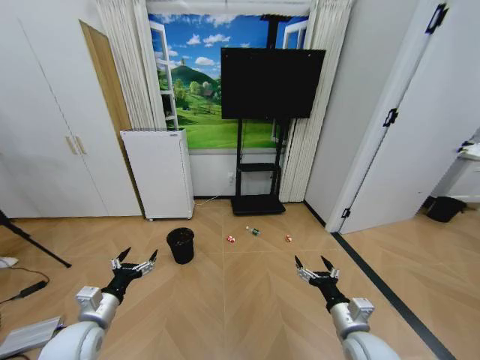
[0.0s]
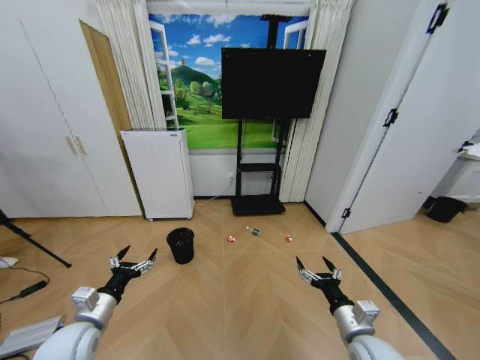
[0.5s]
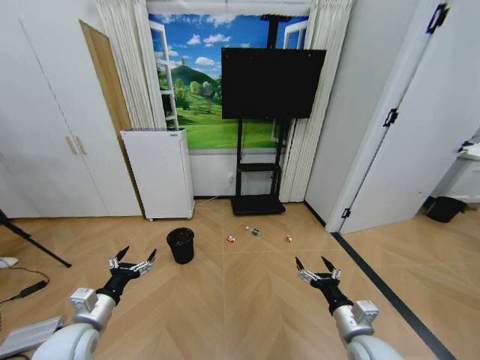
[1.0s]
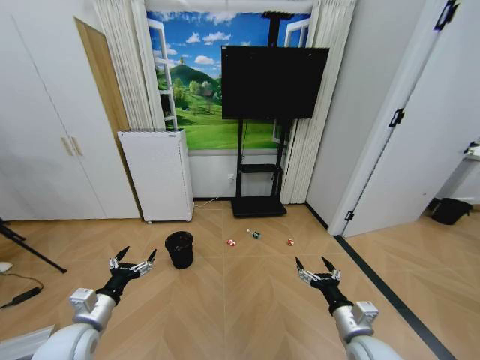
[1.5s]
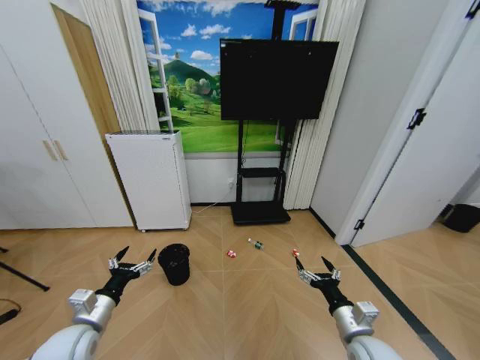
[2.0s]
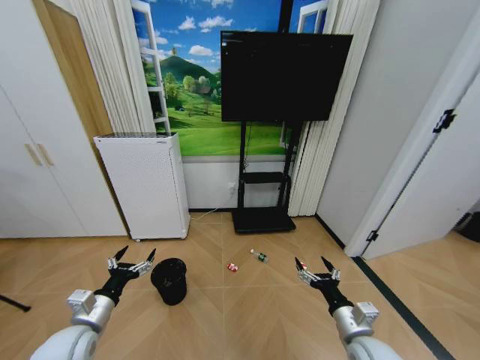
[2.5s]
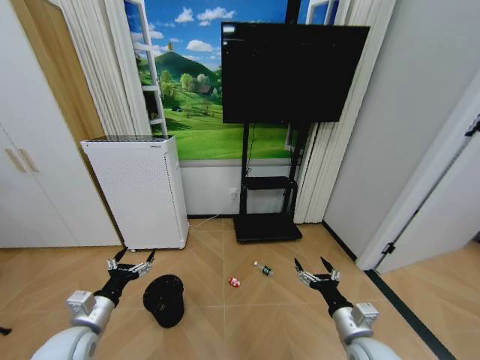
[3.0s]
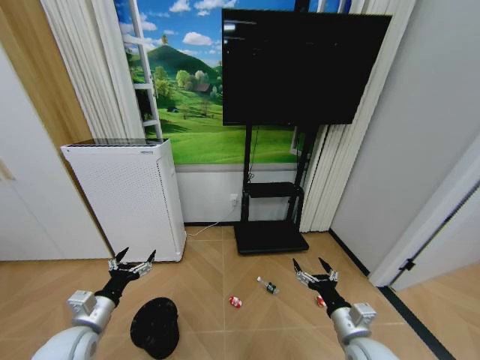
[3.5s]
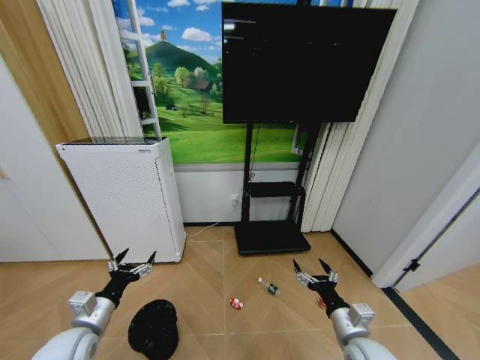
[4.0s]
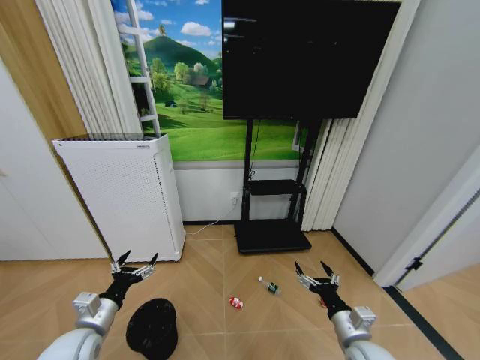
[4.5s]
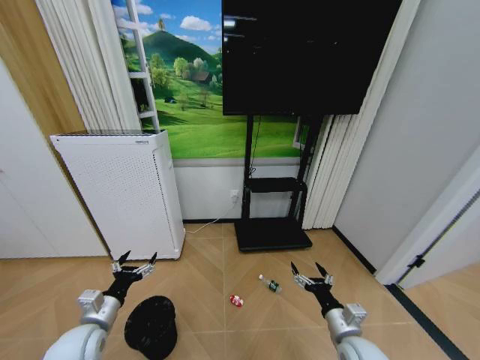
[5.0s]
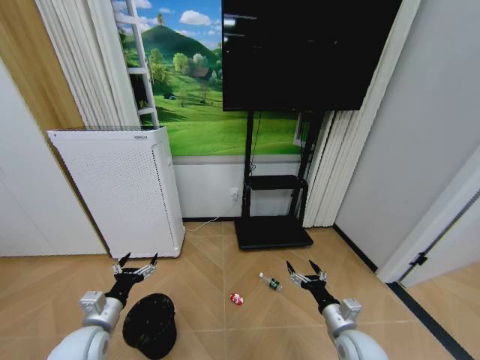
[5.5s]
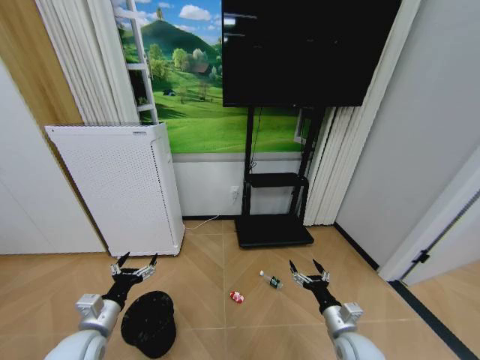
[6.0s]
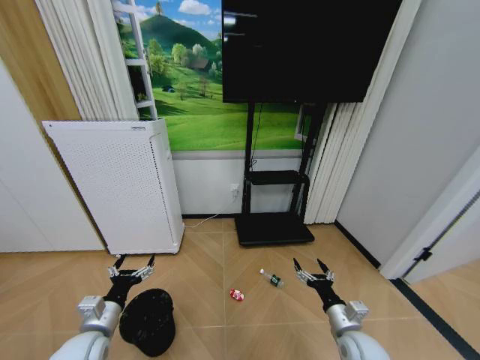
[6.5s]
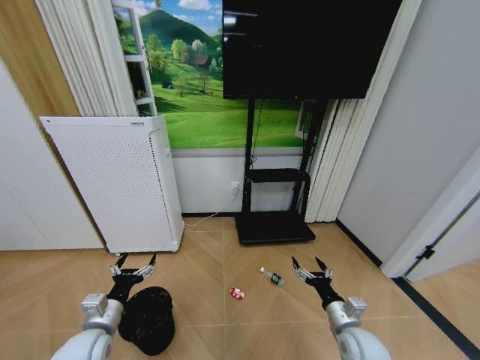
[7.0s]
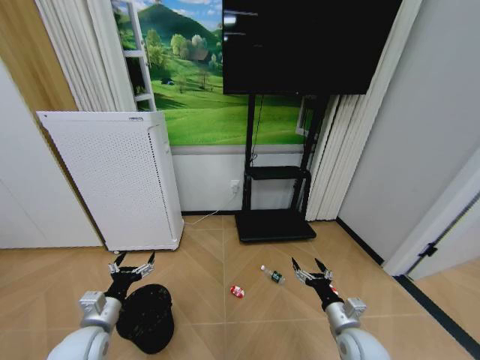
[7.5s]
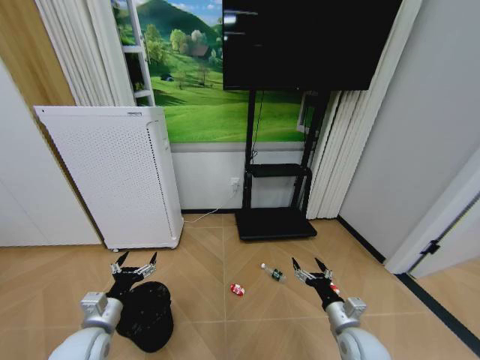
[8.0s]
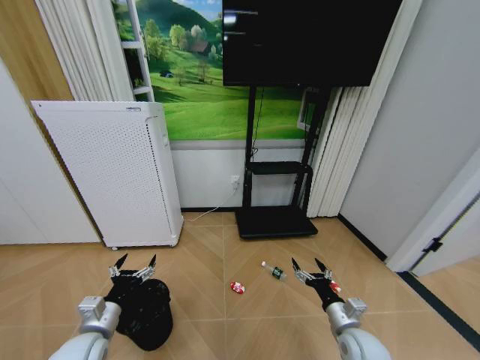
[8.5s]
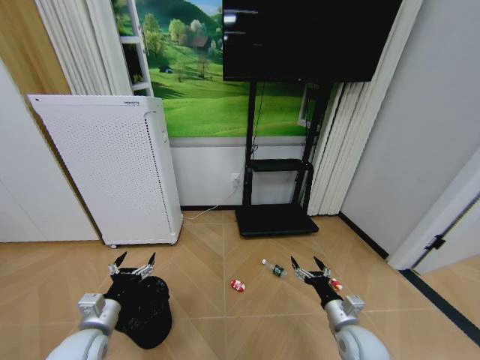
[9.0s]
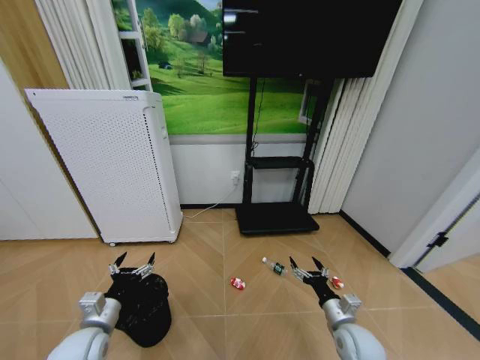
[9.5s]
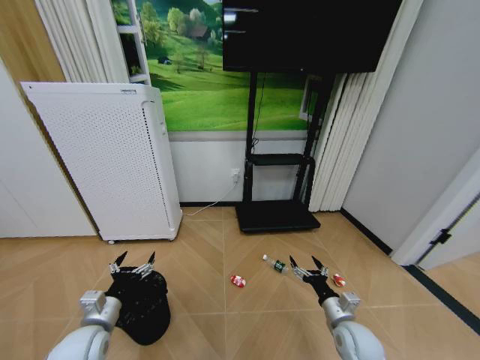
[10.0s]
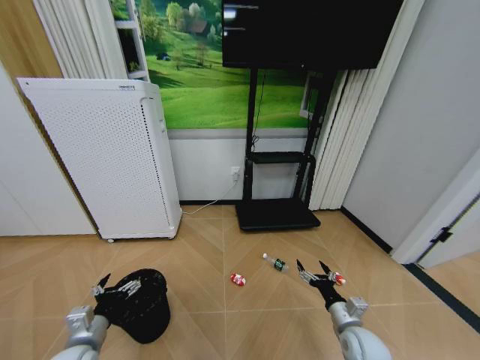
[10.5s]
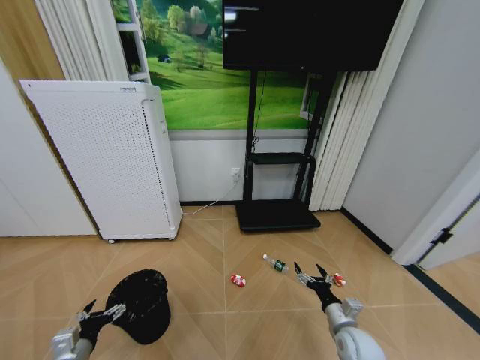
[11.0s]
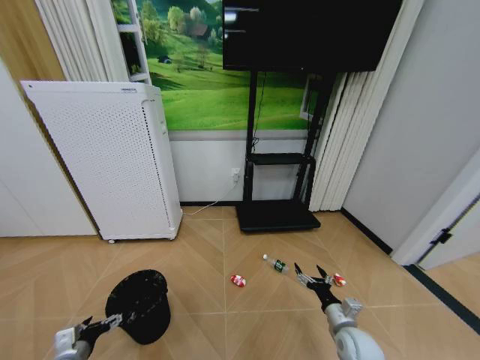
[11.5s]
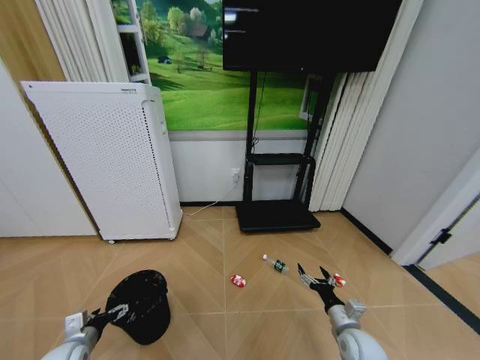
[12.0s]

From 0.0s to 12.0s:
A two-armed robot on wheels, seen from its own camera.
Task of the whole recording: Pick up the trash bin and place the garbage on the floor into it.
From 4.0s to 6.0s: The right gripper goes some 5 cm downward.
From 6.0s to 10.0s: There are only small adjustments of the grippers.
From 10.0s to 12.0s: The left gripper is displaced to the left and downward by some 10 cm.

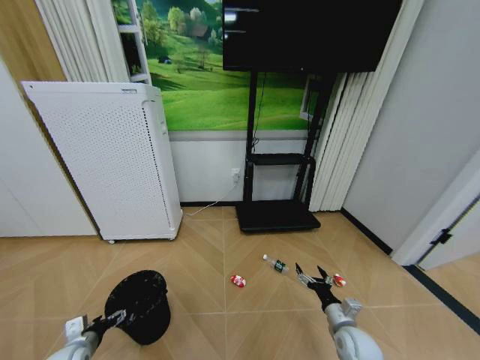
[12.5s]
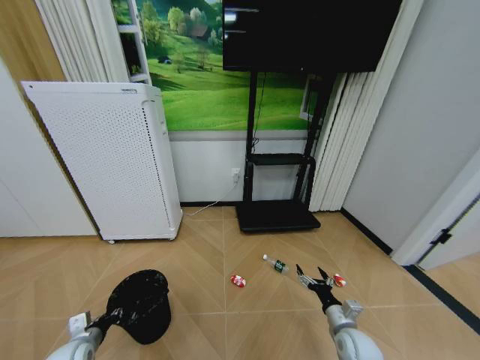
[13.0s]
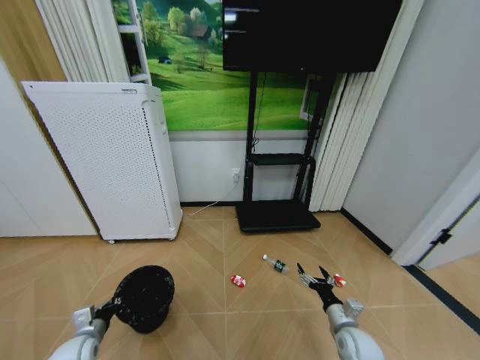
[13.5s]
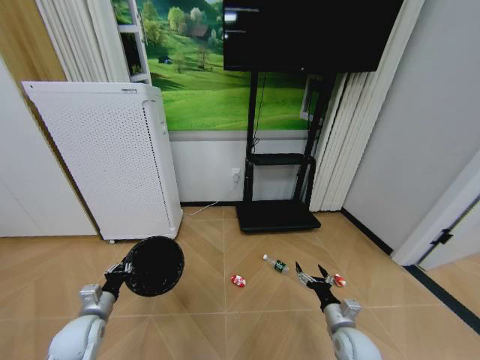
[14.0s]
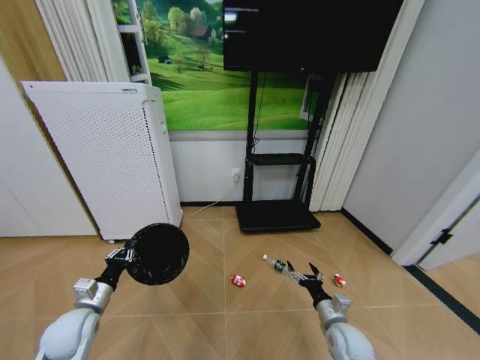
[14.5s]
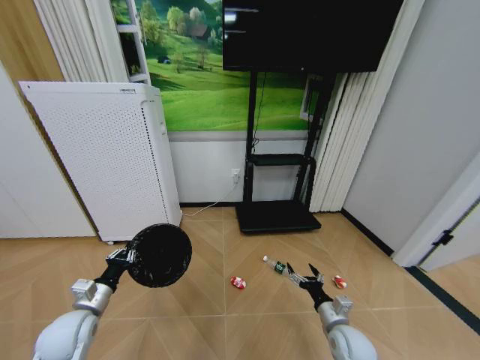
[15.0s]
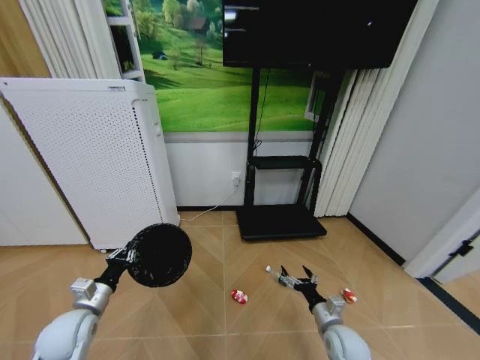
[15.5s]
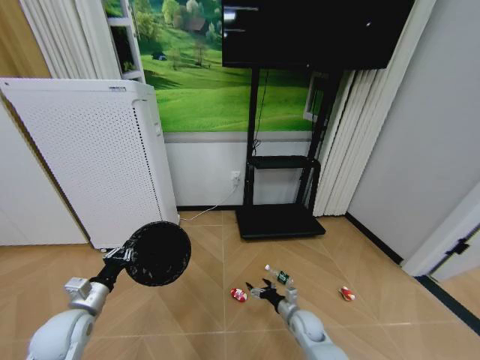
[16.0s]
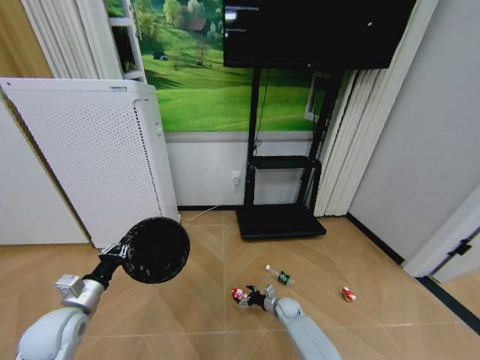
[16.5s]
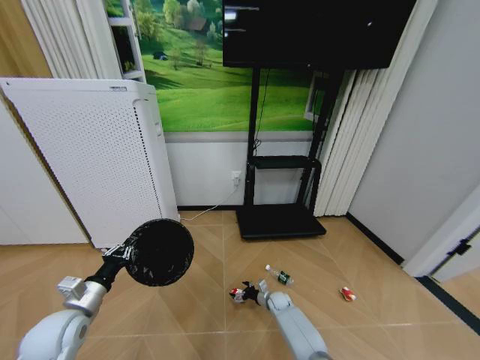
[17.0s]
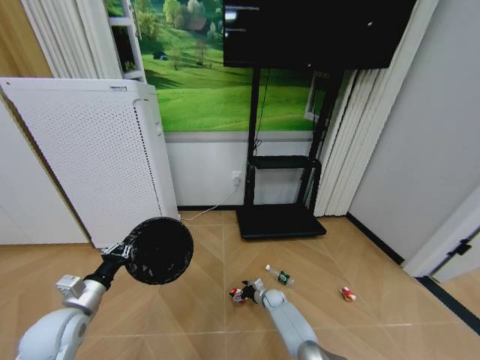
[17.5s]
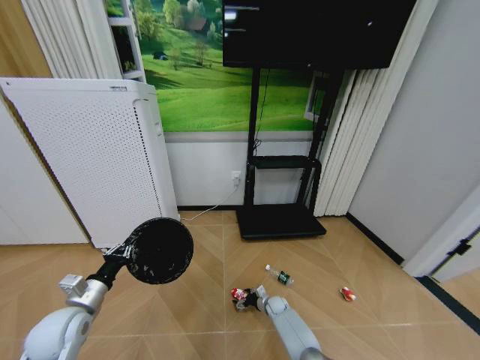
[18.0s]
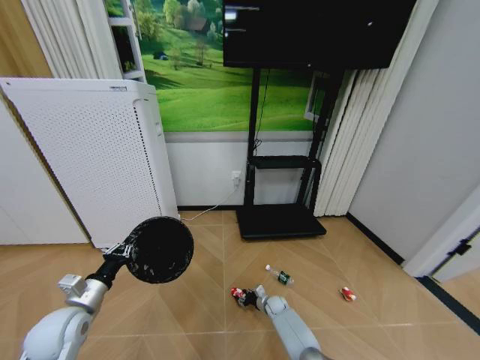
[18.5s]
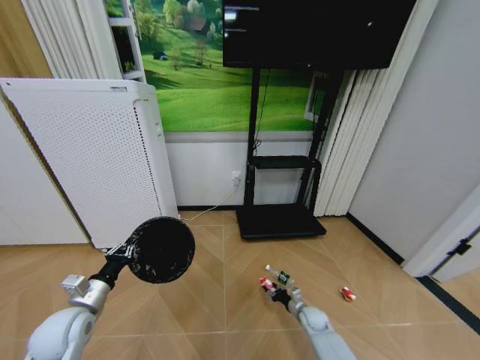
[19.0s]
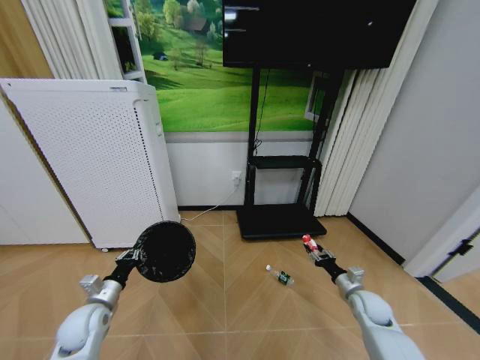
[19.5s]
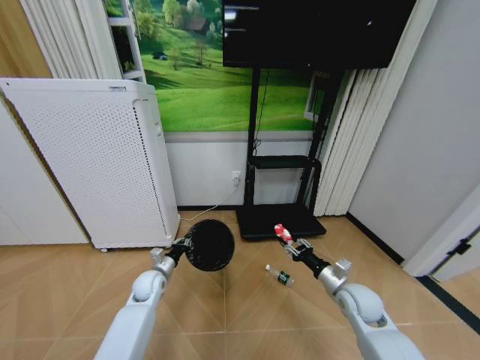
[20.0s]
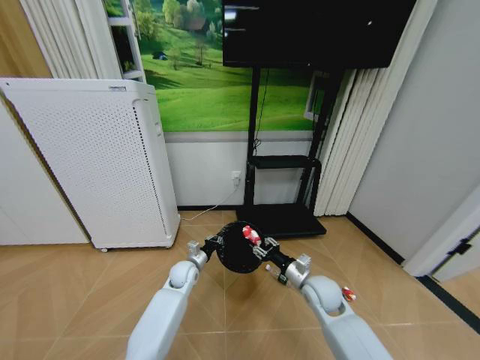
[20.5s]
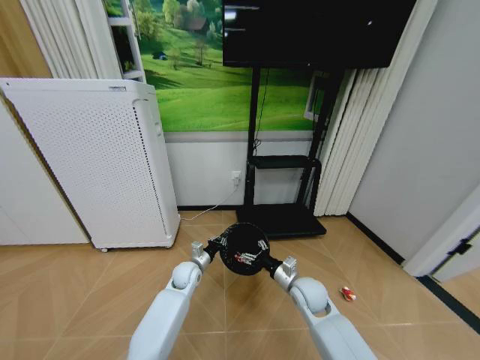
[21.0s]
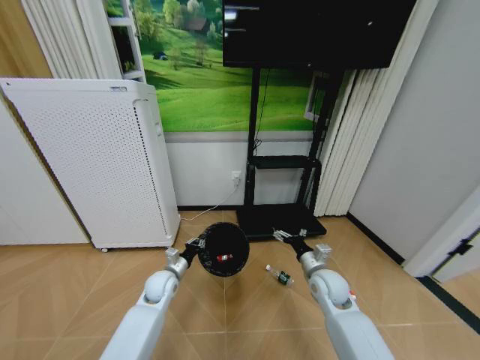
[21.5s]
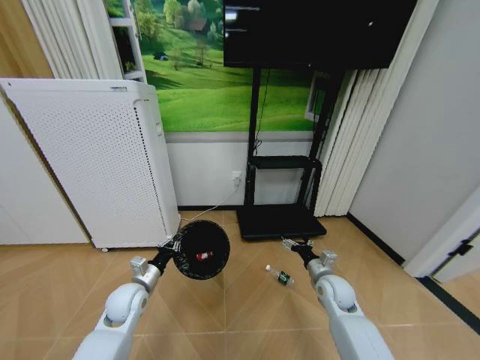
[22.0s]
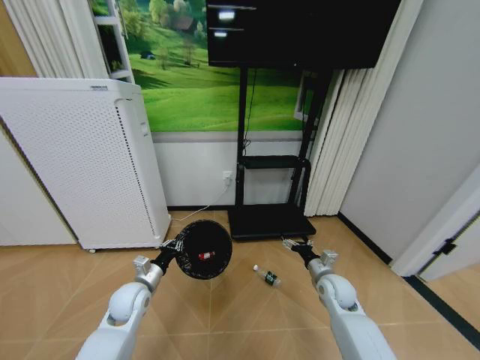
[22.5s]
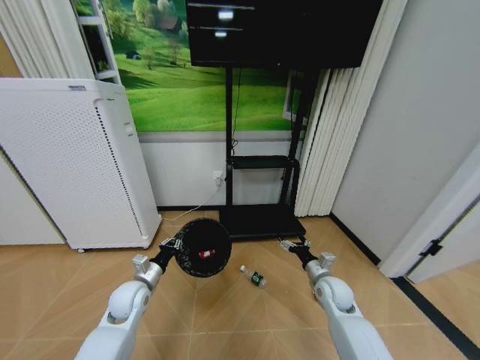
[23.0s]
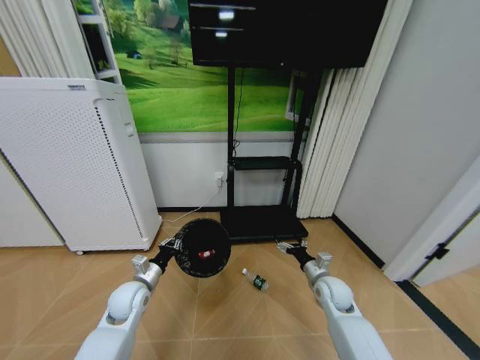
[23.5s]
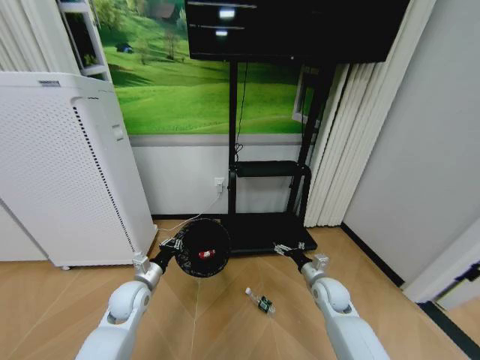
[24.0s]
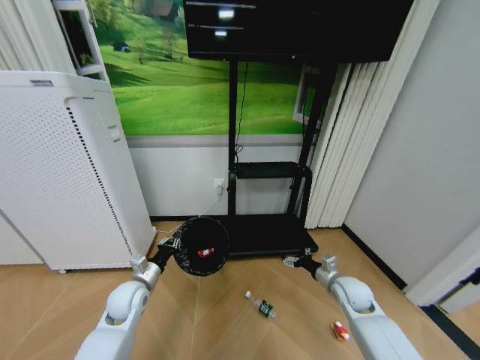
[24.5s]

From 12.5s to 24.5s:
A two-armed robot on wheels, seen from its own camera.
Task of the whole recording: Pick up the trash bin and place the garbage on the floor into it.
From 12.5s to 14.5s: The left gripper goes about 10 cm upward and forward, and closes.
From 14.5s to 16.5s: The right gripper travels downward, forward and to the left by some 25 cm.
From 16.5s to 18.5s: The right gripper ends up roughly 5 cm from where it was, and closes.
From 18.5s to 20.5s: The left gripper heads to the right, forward and downward, covering roughly 30 cm, while the right gripper is displaced upward by approximately 30 cm.
From 20.5s to 22.5s: The left gripper travels to the left, backward and upward by roughly 15 cm. The right gripper is displaced to the right by about 5 cm, and opens.

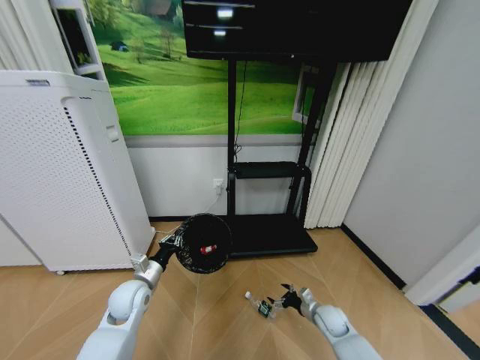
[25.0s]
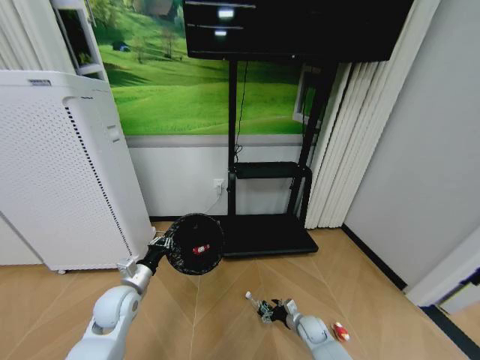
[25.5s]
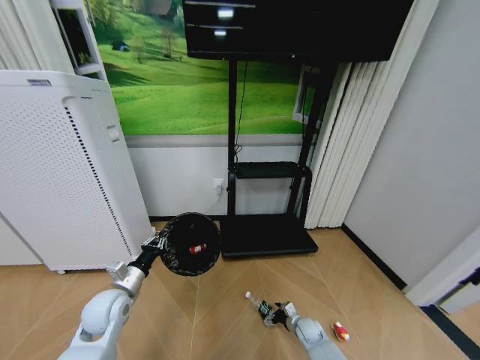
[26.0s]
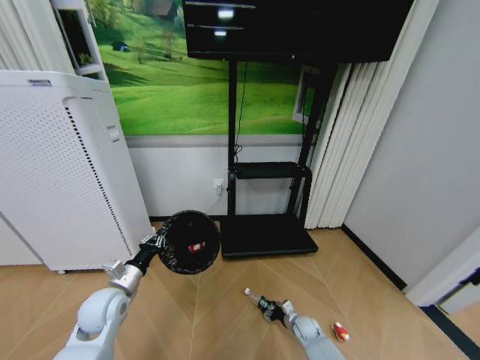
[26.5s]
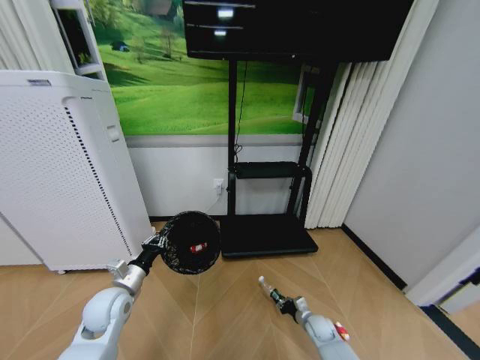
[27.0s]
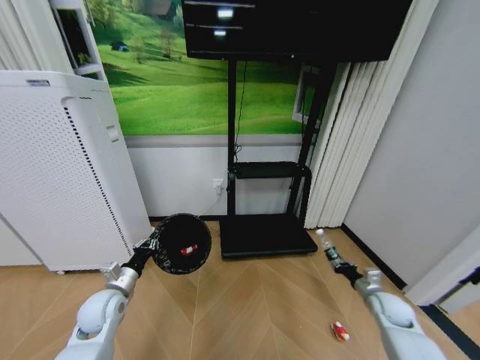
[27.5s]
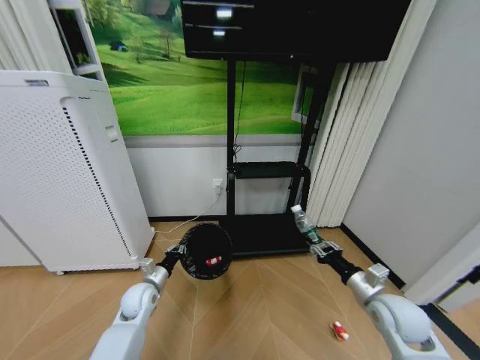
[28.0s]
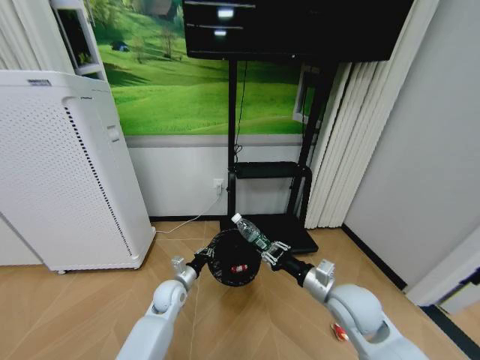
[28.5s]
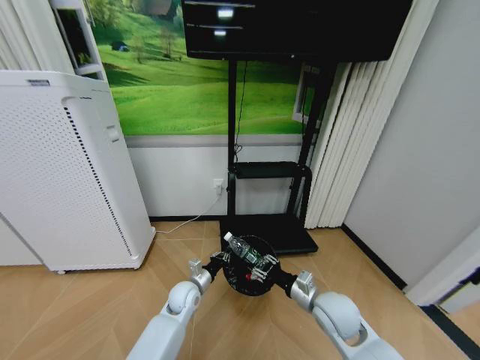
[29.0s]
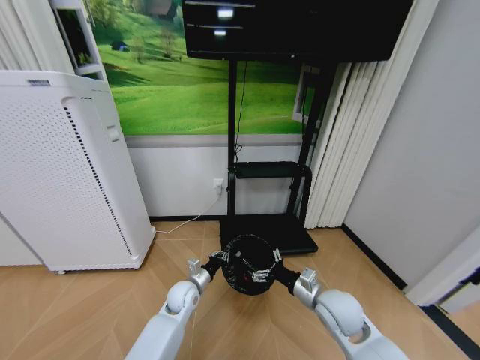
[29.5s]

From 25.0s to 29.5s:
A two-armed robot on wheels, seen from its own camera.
Task of the whole recording: Pick up the trash bin and place the garbage on the floor into it.
From 25.0s to 27.0s: The left gripper shifts by approximately 5 cm. The right gripper is displaced downward by approximately 10 cm, and closes its fingers.
From 27.0s to 29.5s: The left gripper goes about 20 cm to the right, downward and forward; the right gripper is displaced upward by approximately 30 cm, and opens.
